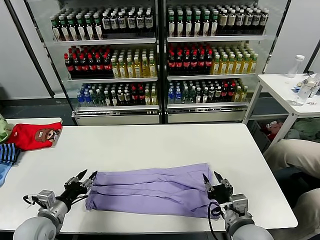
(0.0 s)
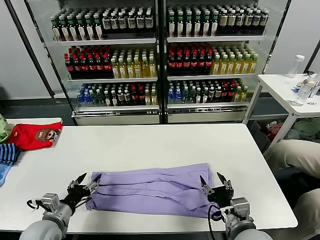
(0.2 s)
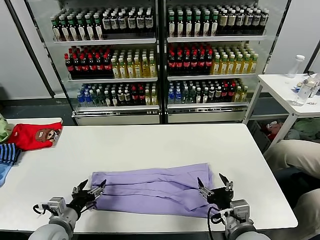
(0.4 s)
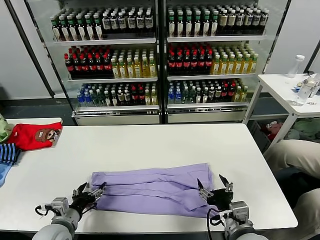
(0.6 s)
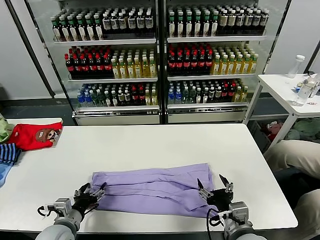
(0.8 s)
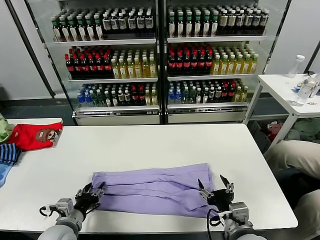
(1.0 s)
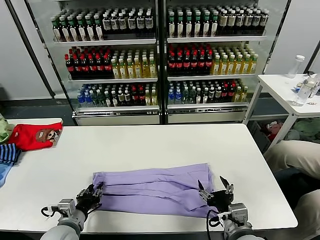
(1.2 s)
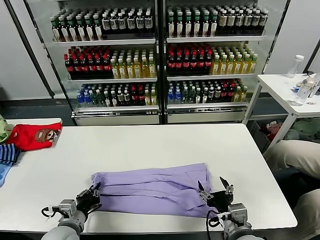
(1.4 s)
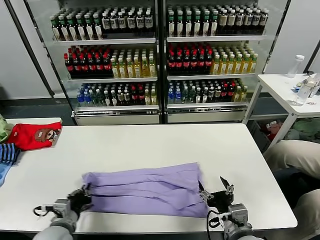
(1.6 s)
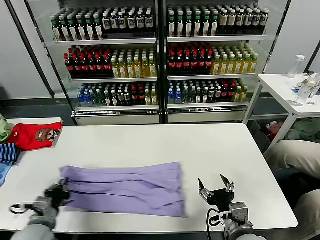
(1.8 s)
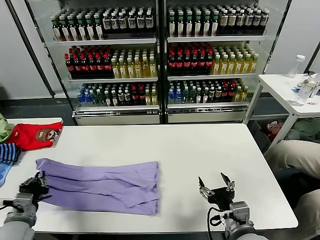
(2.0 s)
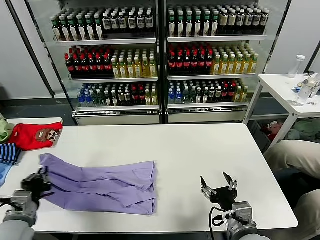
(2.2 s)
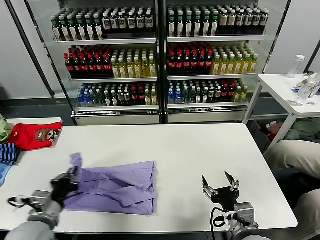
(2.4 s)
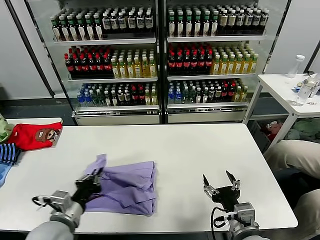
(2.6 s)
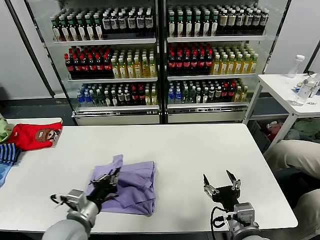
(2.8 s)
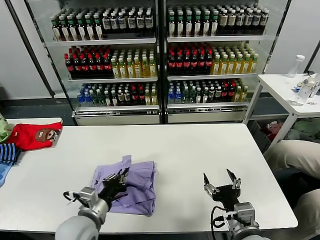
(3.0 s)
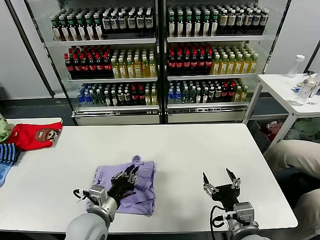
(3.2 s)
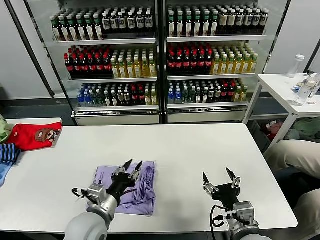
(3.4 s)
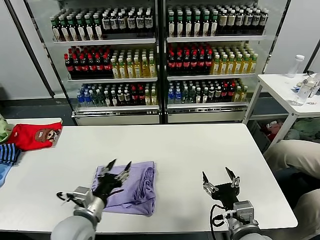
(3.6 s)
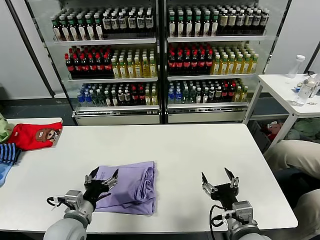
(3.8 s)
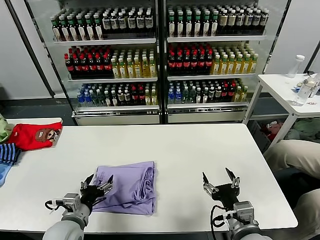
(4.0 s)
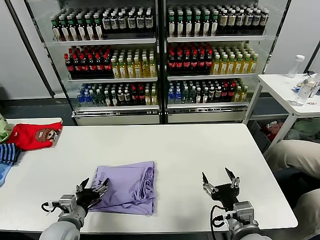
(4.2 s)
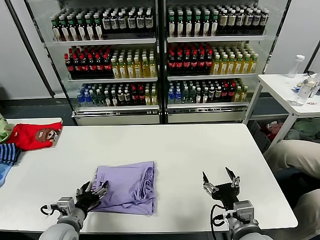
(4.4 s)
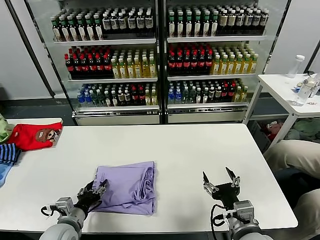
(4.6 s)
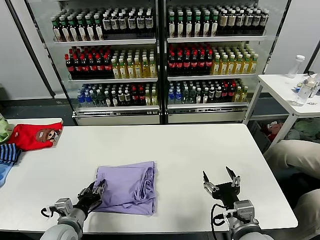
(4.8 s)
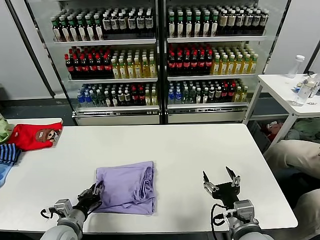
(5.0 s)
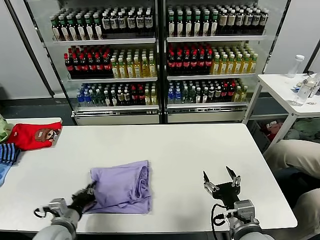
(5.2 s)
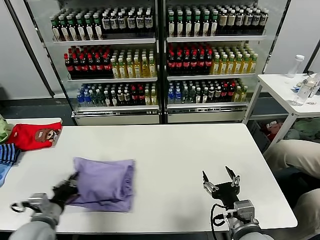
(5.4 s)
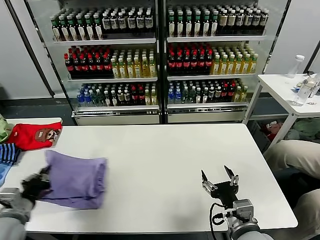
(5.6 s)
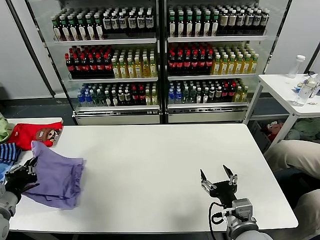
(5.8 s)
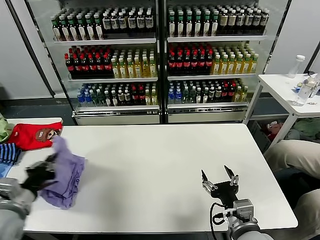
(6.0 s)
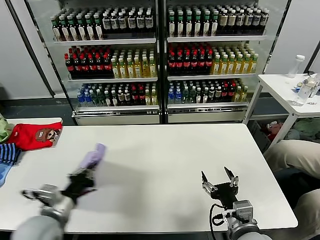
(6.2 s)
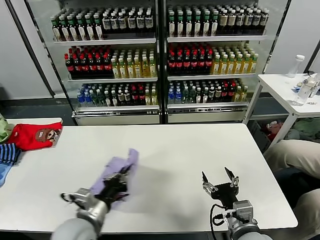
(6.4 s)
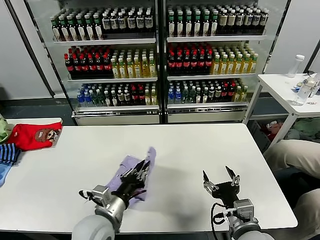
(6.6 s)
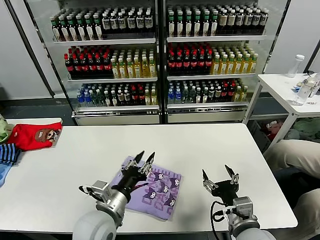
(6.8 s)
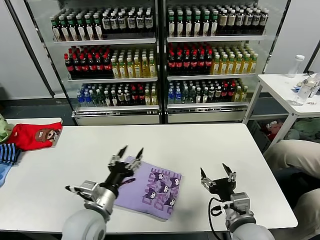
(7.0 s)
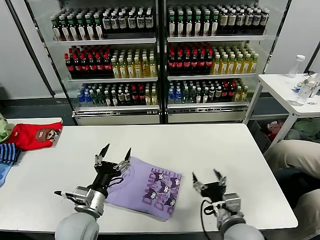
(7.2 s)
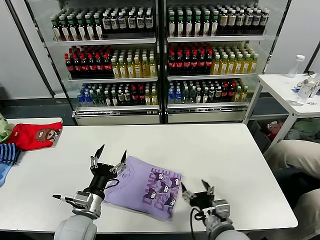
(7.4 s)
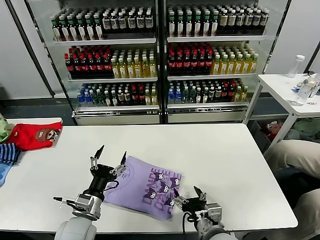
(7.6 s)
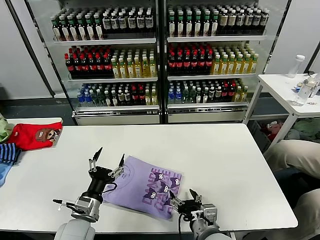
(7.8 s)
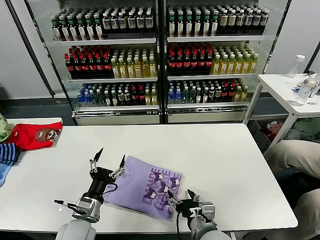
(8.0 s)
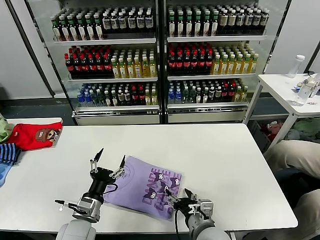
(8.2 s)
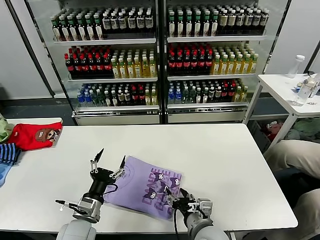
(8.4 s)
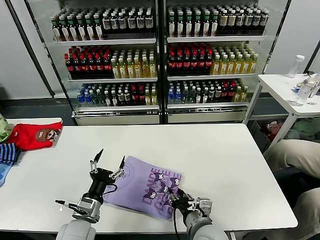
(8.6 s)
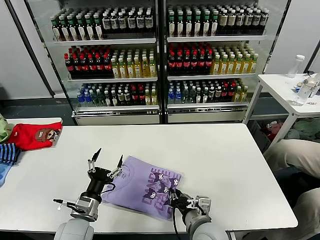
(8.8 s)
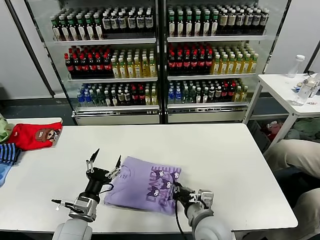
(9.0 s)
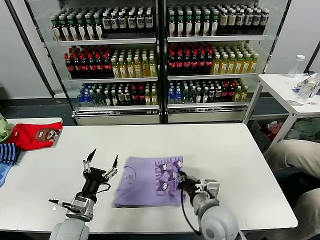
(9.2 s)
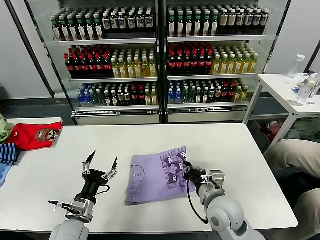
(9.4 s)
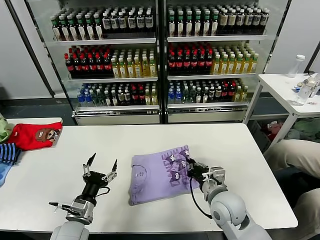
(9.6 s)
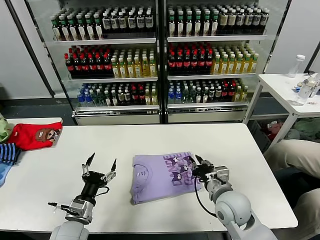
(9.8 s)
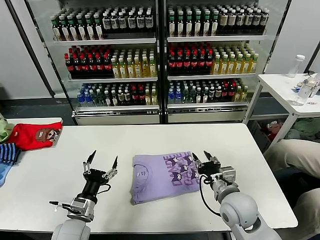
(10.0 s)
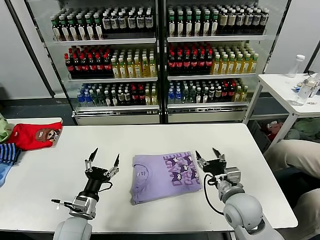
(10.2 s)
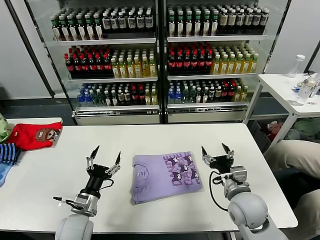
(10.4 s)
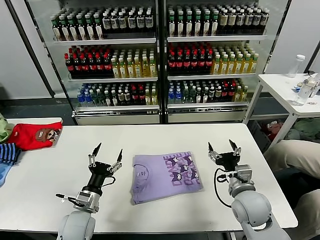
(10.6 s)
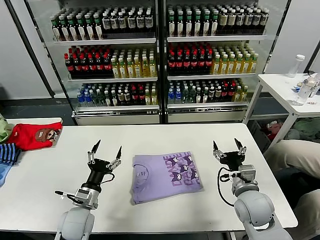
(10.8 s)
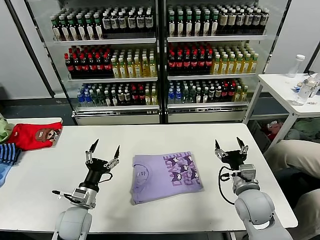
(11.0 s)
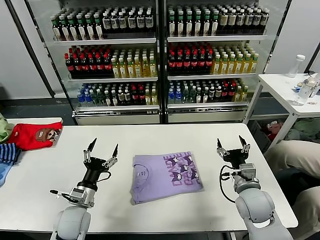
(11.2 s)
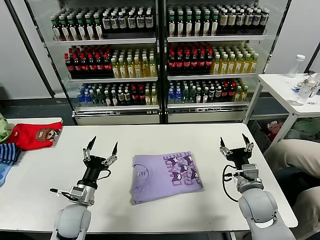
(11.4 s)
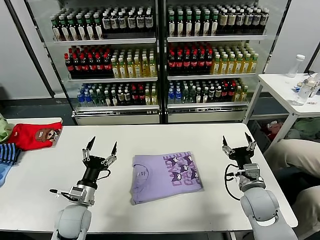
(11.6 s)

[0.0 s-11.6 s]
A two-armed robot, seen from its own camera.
Task of the whole recording: fold and organize the clothes.
Step, 0.2 to 1.6 s: use the left gripper to clamp the left edge of the fabric.
Step, 1.8 to 3.6 s: use the left gripper to drag the left edge of the fabric to the left and folds it over the right edge.
Step, 3.8 to 7.8 s: Flip the folded clothes over with left gripper.
Step, 8.0 to 9.8 s: Drag the clothes to the center of the table.
0.0 to 1.4 s: The left gripper travels to the right by some 5 cm, and closes. The right gripper opens its fingers.
1.4 to 2.8 s: The left gripper is displaced upward by some 10 cm, and goes to the left and returns, roughly 10 cm each way.
2.8 to 4.4 s: The left gripper heads downward and to the left, covering approximately 10 cm, and opens.
4.4 to 5.8 s: The left gripper heads to the left and upward, covering roughly 20 cm, and closes.
5.8 to 7.2 s: The left gripper moves to the right, approximately 20 cm, and opens.
7.2 to 8.8 s: The right gripper is displaced to the left by approximately 5 cm, and closes. Meanwhile the left gripper moves downward, roughly 5 cm.
8.8 to 10.2 s: The right gripper goes some 10 cm to the right and forward, and opens its fingers.
10.2 to 11.6 s: The right gripper is displaced to the right by about 5 cm.
